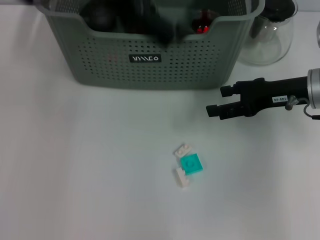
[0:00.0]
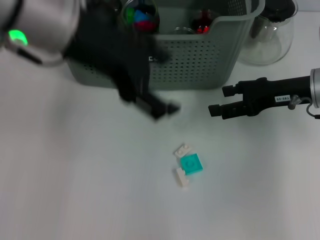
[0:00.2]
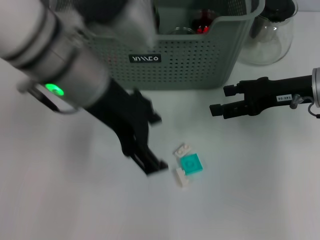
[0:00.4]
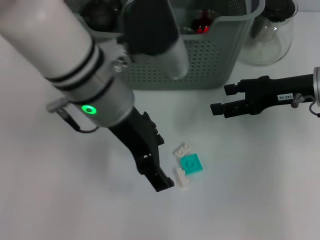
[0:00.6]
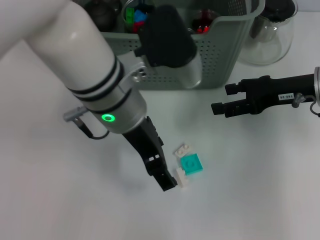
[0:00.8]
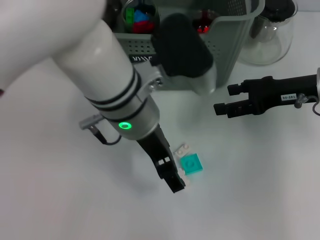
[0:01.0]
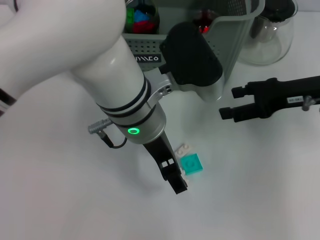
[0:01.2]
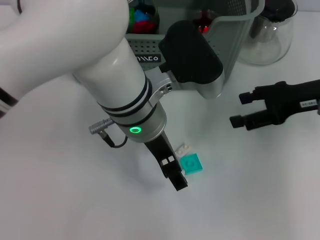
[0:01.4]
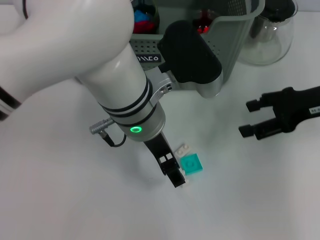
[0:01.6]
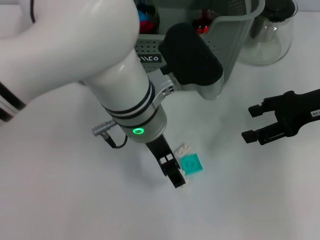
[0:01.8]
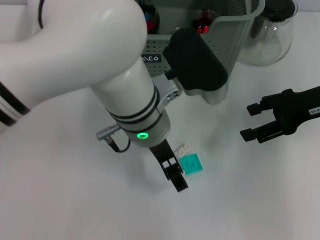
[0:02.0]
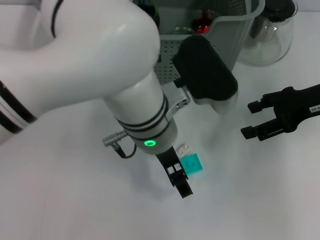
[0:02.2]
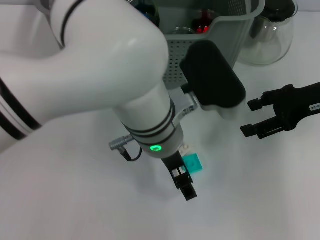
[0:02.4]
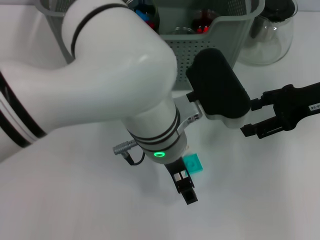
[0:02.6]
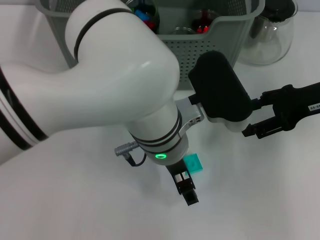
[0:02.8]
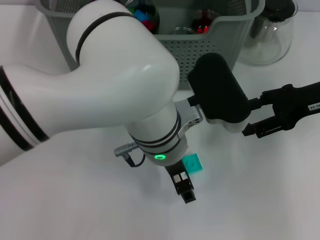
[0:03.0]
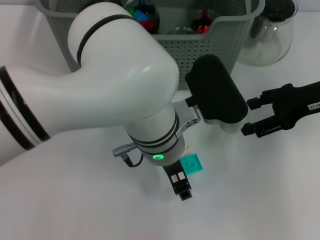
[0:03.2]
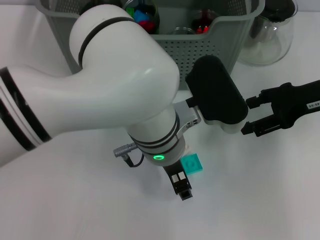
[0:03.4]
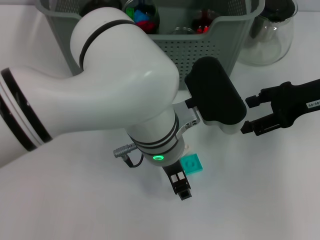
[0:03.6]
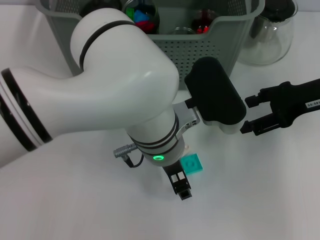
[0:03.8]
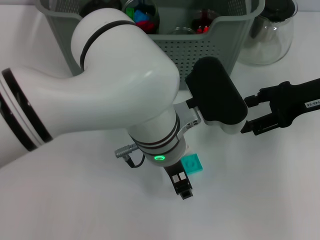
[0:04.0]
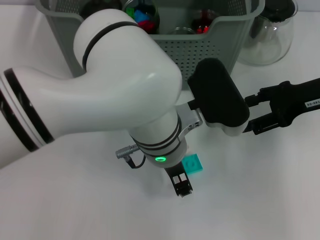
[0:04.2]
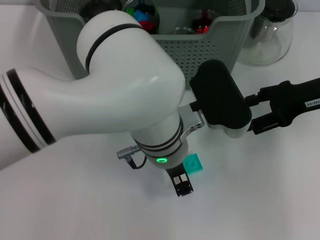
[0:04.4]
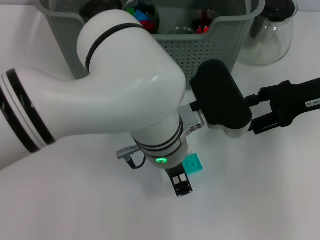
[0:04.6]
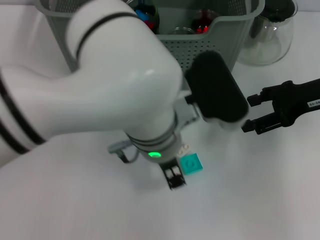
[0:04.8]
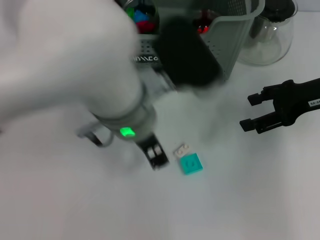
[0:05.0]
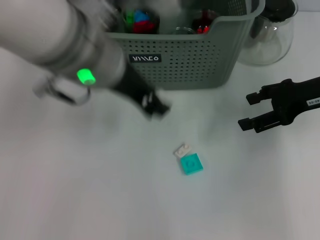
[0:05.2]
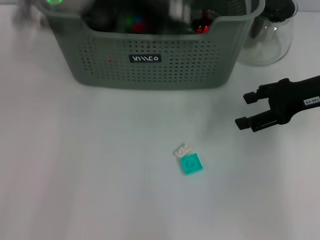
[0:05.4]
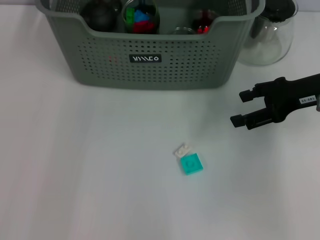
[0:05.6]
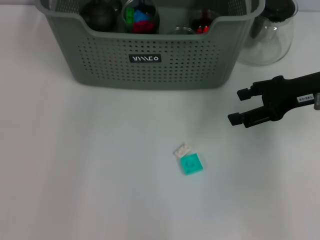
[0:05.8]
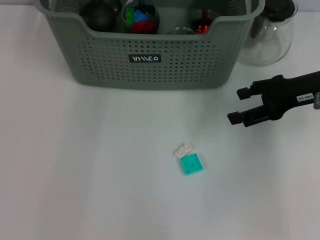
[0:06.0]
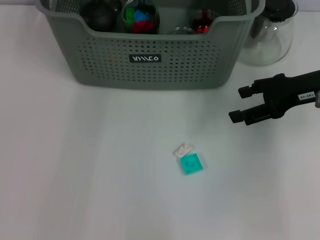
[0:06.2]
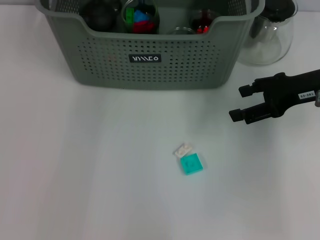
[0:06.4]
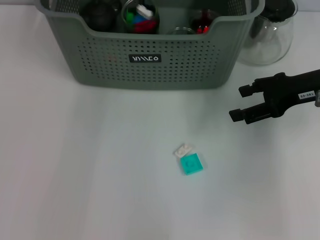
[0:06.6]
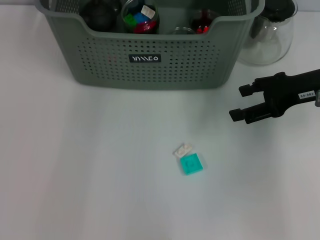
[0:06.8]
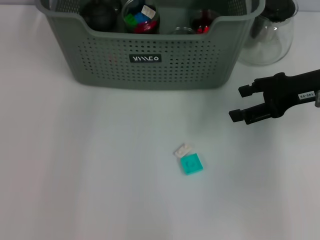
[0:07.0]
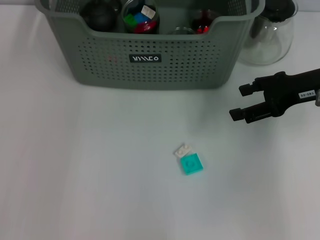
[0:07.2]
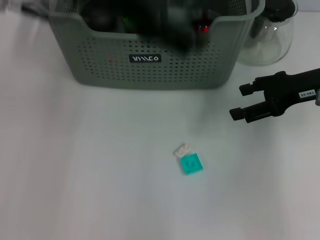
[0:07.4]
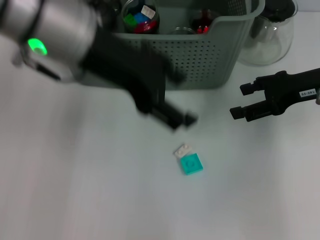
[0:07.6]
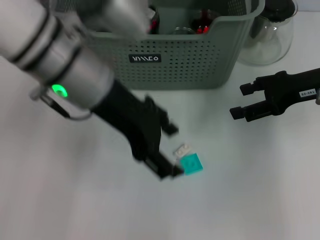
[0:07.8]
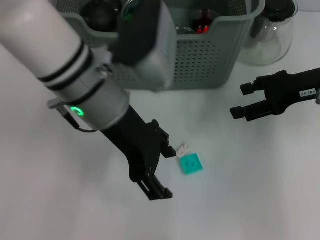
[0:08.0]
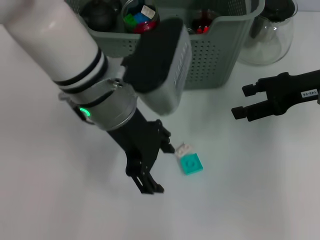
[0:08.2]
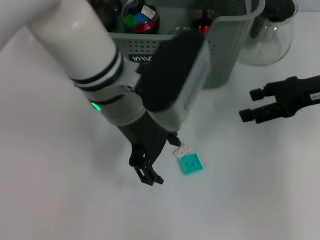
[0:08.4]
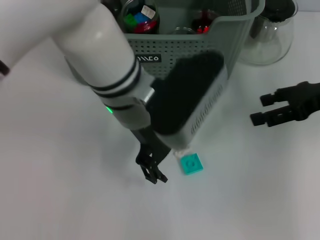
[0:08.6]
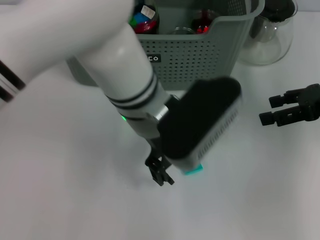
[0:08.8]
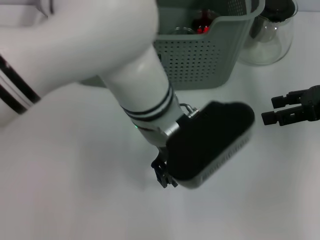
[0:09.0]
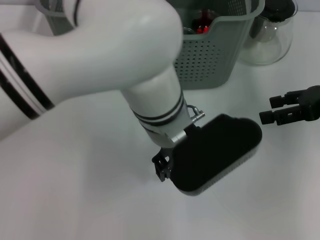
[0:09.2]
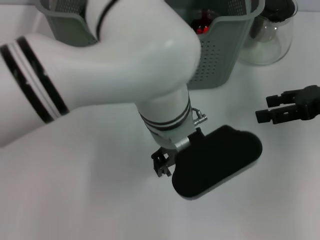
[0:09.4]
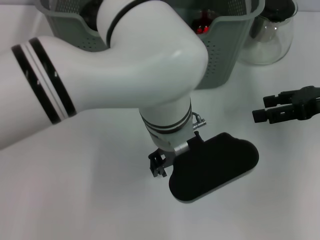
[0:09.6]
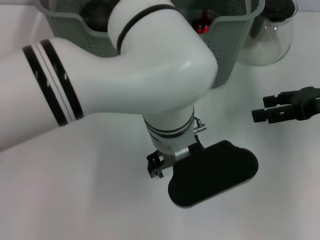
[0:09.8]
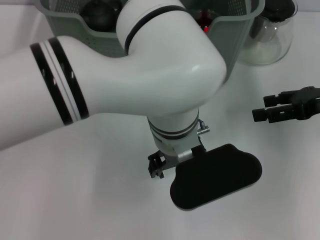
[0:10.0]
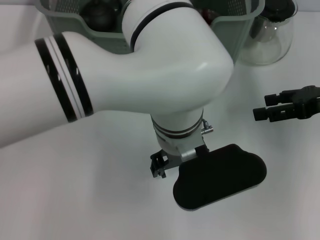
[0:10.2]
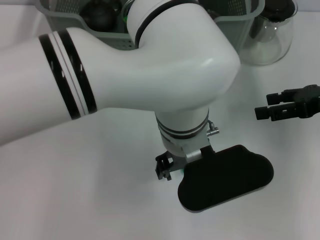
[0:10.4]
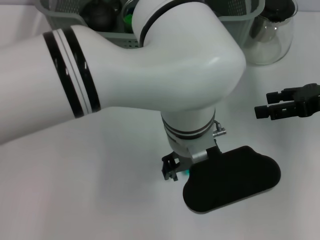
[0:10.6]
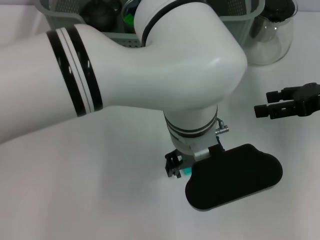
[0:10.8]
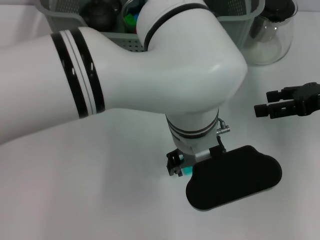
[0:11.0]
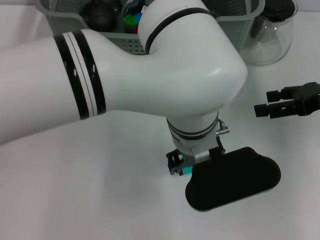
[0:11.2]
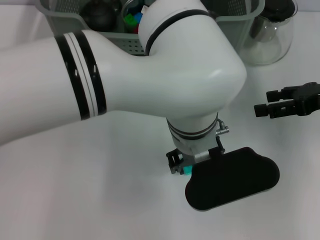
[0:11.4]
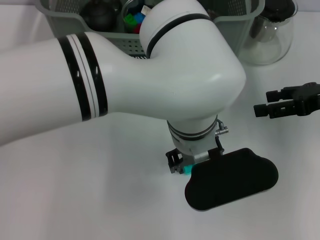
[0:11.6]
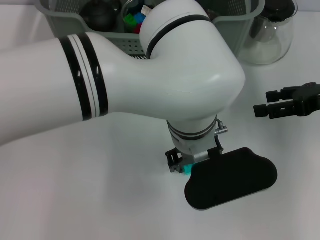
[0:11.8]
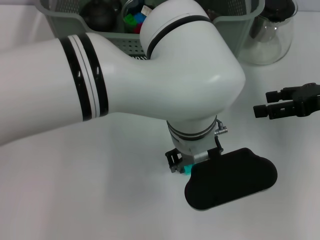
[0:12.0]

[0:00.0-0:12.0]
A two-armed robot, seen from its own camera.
Task of the whole recording: pick up the teacup on the table and place it into the storage bin, pick up the block on the table and place it into the storage bin.
Step, 0:00.0 to 0:04.4: Grasp the white block with left gripper.
Step, 0:04.6 to 0:06.6: Place the white block in the storage box with left gripper.
0:00.0 to 0:01.6: The left gripper moves downward and to the right, about 20 cm.
0:03.0 to 0:04.4: The left gripper closes up.
0:04.4 to 0:06.0: The left gripper heads forward, upward and to the left, covering roughly 30 cm.
0:06.0 to 0:07.6: The left gripper travels backward by approximately 20 cm, and opens up.
0:07.6 to 0:09.0: The right gripper changes place by approximately 5 cm. The left gripper heads to the right and downward, covering approximately 15 cm.
0:10.4 to 0:12.0: The grippers move only a little.

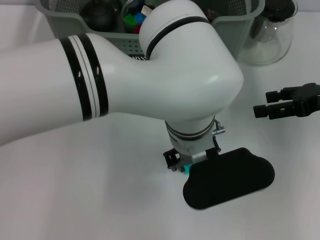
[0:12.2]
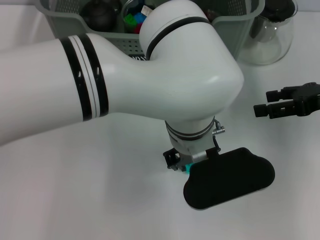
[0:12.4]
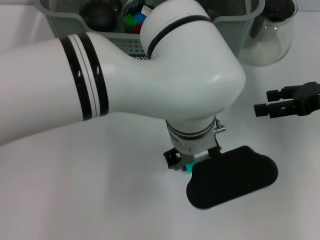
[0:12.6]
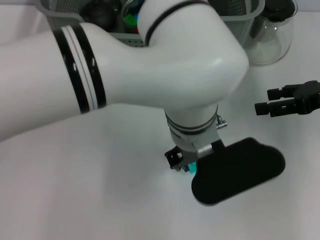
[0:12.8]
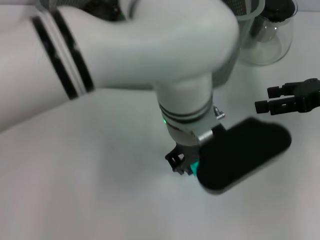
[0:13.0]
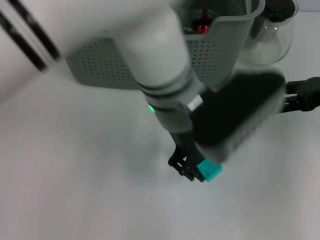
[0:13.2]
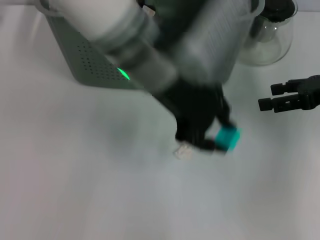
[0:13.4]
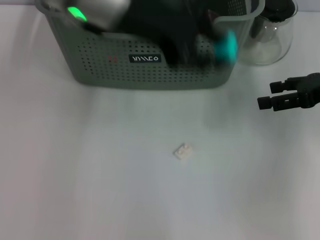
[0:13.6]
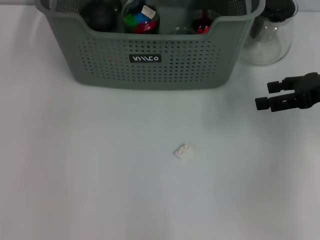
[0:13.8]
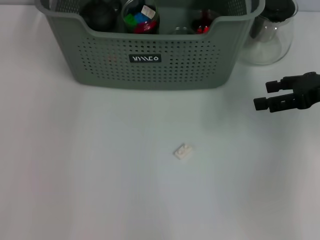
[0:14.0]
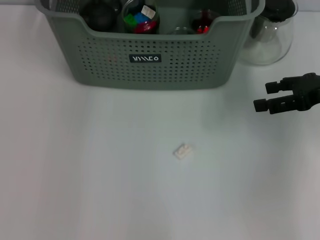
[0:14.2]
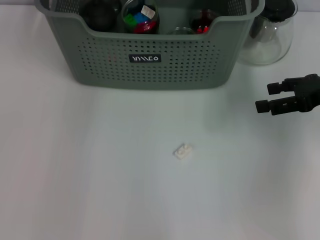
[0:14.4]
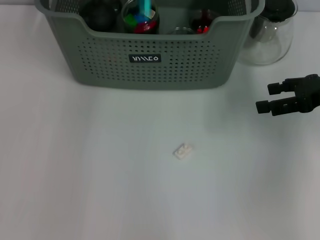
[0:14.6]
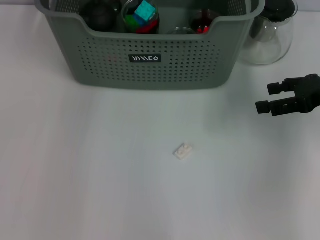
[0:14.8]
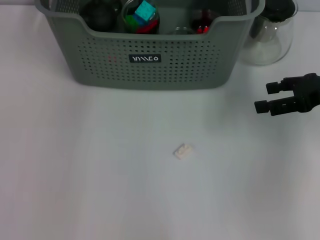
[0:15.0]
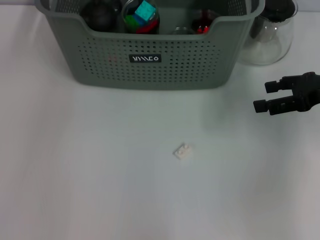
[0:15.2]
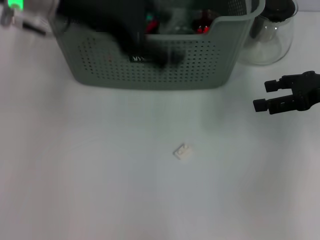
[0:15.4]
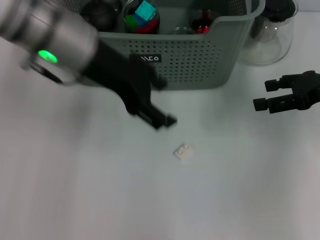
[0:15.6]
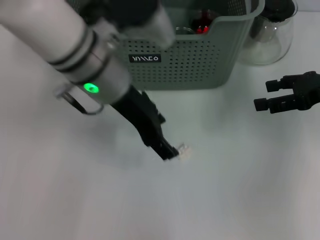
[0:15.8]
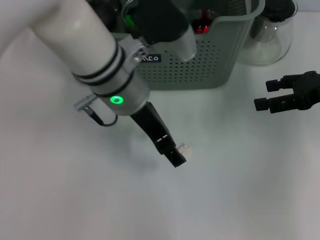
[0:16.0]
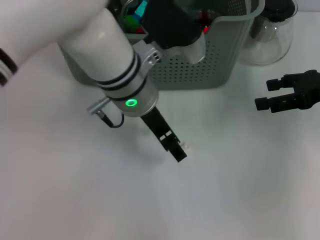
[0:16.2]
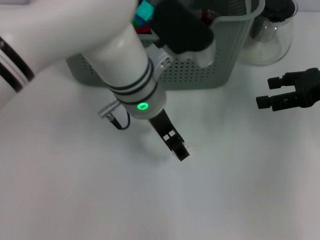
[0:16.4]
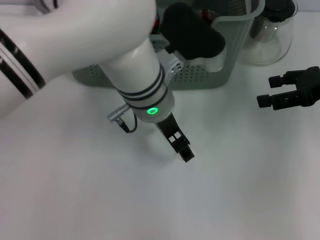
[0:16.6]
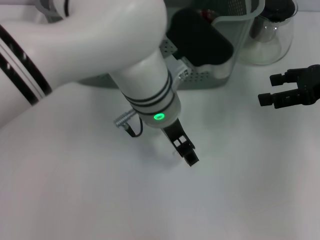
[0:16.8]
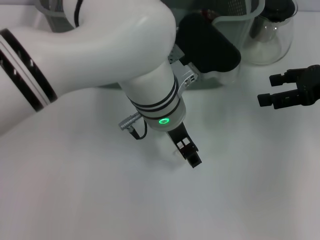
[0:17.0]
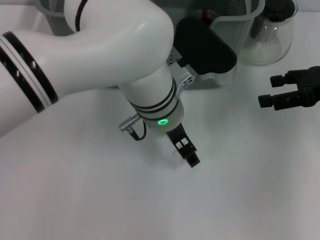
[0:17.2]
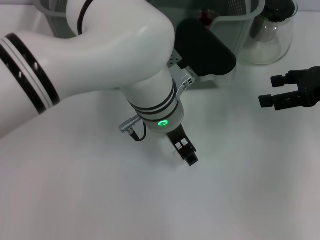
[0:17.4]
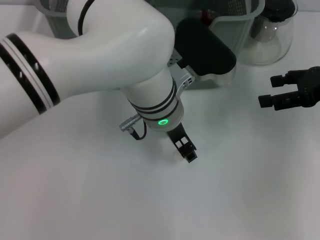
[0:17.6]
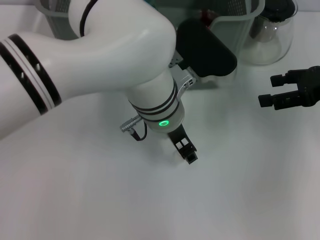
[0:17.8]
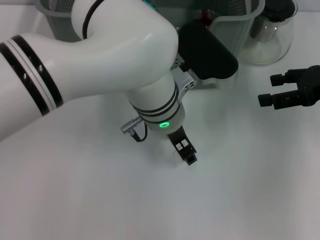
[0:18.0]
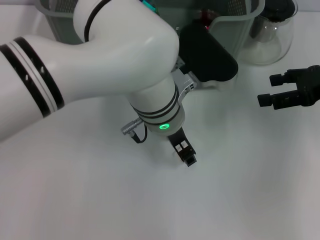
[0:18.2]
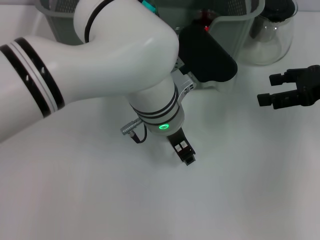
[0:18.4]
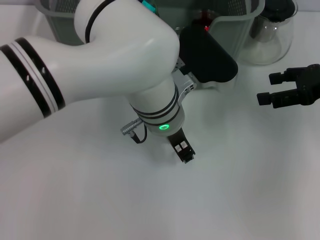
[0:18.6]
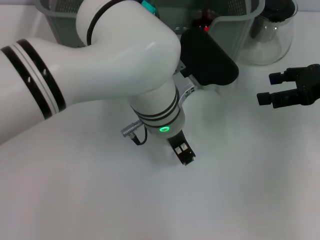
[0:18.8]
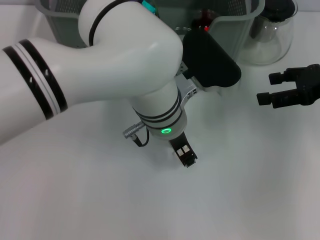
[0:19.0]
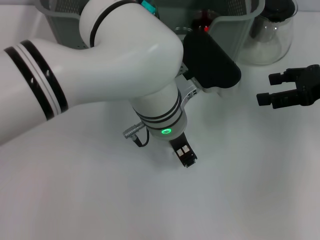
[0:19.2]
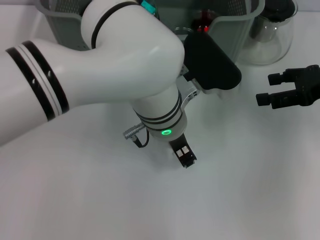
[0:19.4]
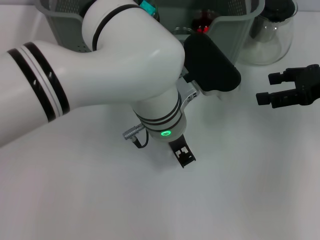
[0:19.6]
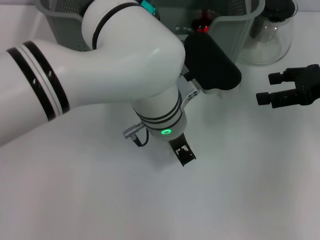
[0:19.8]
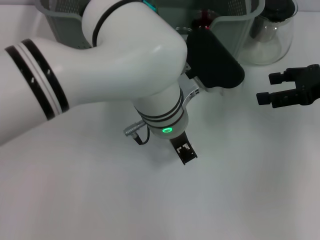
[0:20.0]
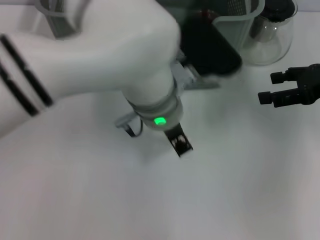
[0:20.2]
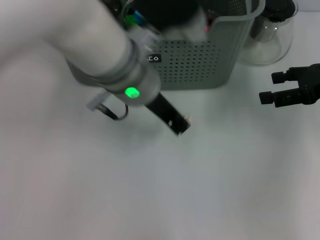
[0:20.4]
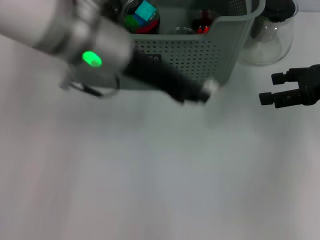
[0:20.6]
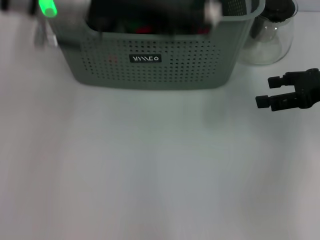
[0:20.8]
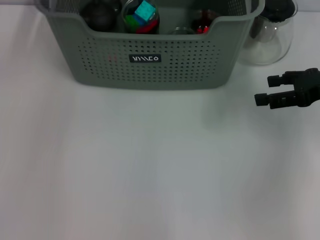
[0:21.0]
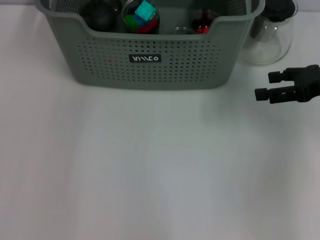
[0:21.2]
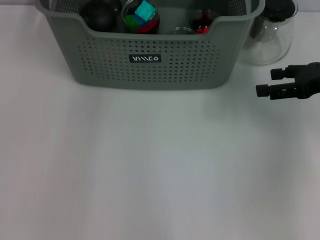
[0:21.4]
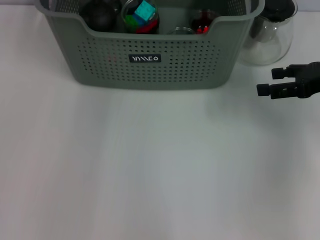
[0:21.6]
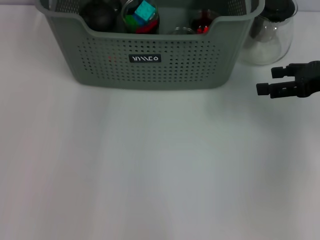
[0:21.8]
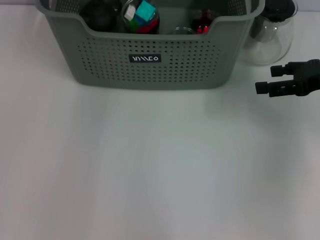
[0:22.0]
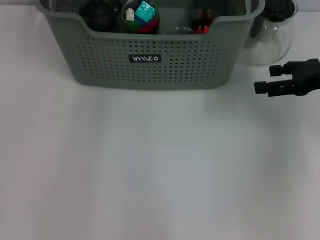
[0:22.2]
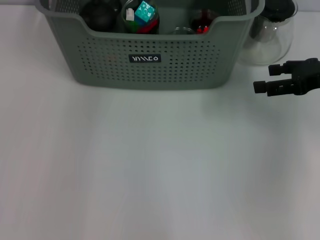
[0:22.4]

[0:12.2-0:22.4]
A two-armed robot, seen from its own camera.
Task of the whole recording: pick up the teacup on the table and place it into the storage bin, pick up the block on the table and place it into the storage bin.
Step, 0:12.6 to 0:14.6: Place the light blue block in the storage box with left gripper.
Step, 0:14.8 to 0:19.8: Grasp the white block with left gripper.
Step, 0:20.0 to 0:22.0: Place the white block in the storage box with left gripper.
0:12.2 to 0:13.6: The left gripper is displaced to the left, upward and forward by roughly 20 cm.
0:13.6 to 0:15.2: The left gripper is displaced to the left by approximately 5 cm, travels forward and back again, roughly 10 cm each way, and opens up.
0:15.2 to 0:16.6: The left gripper shifts roughly 20 cm to the right, downward and backward.
0:18.0 to 0:19.4: The two grippers keep their place.
0:19.4 to 0:21.0: The left gripper shifts roughly 25 cm upward, to the left and forward.
